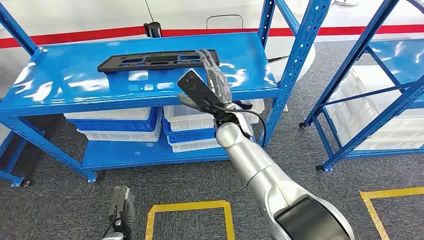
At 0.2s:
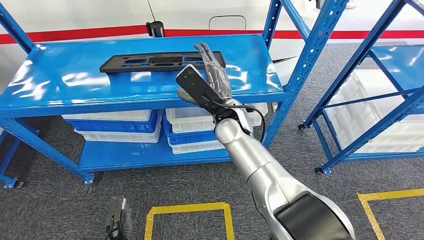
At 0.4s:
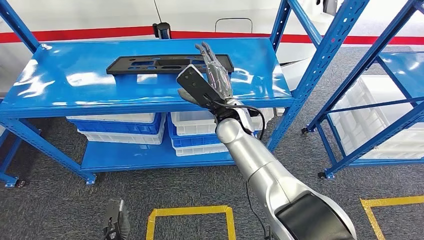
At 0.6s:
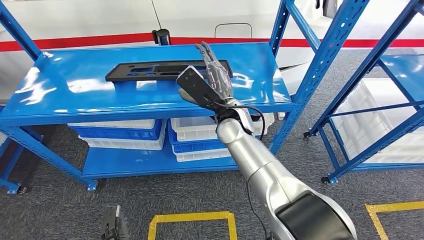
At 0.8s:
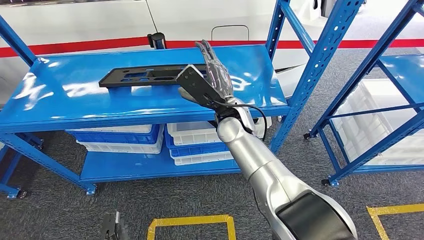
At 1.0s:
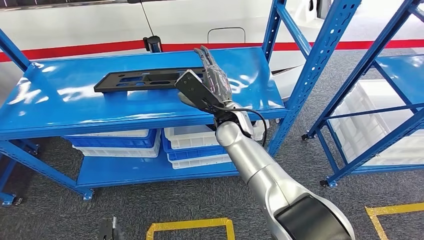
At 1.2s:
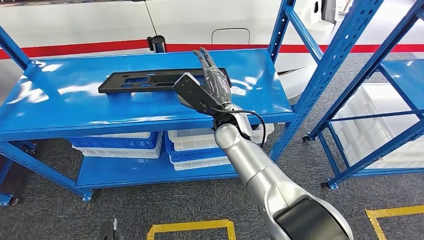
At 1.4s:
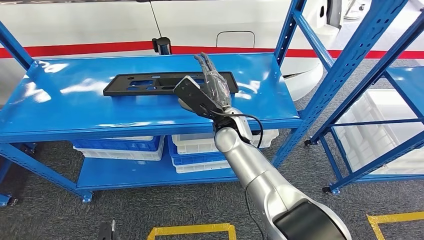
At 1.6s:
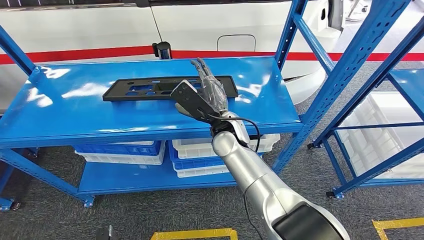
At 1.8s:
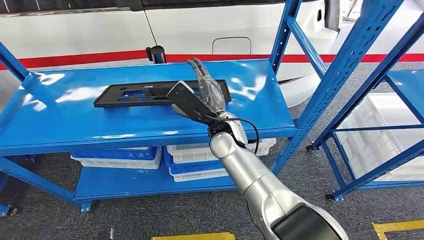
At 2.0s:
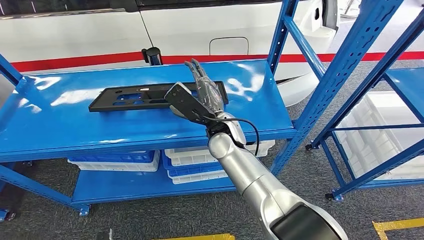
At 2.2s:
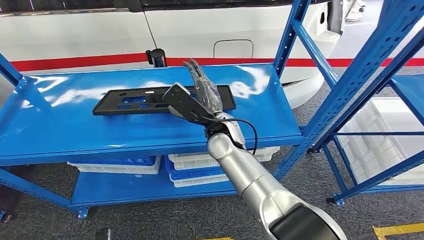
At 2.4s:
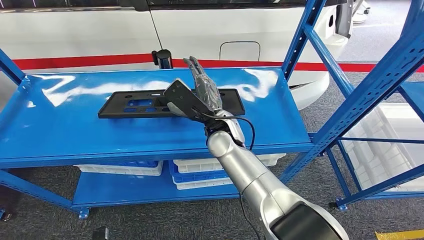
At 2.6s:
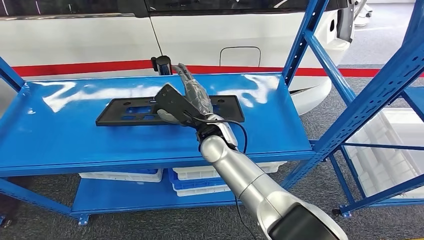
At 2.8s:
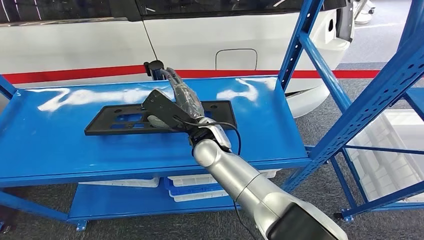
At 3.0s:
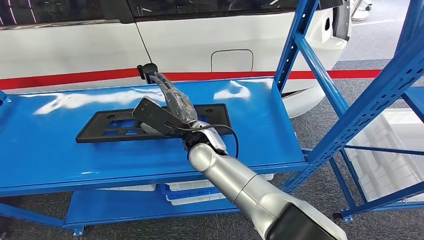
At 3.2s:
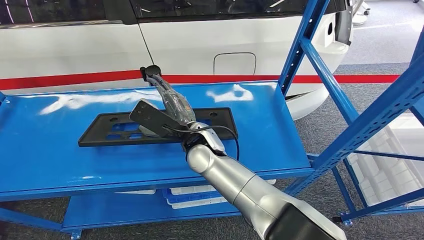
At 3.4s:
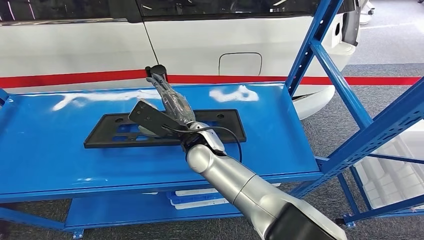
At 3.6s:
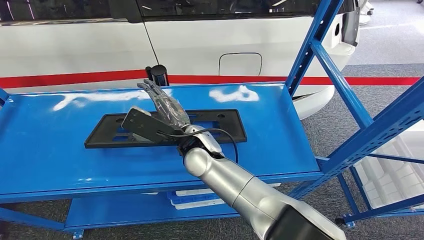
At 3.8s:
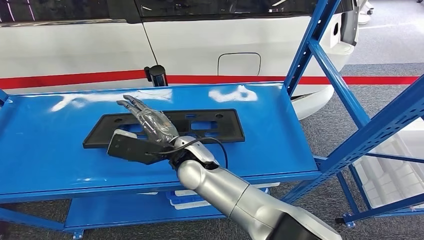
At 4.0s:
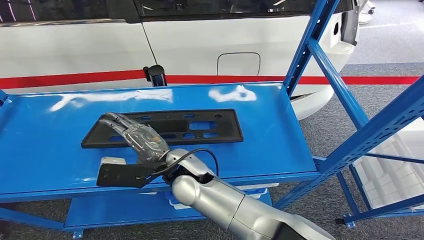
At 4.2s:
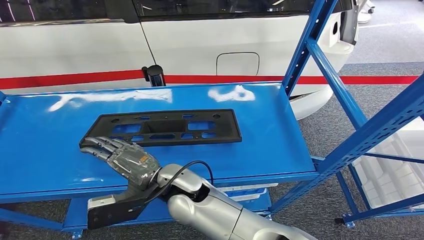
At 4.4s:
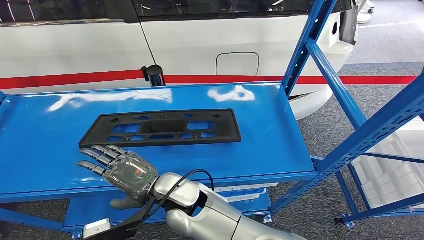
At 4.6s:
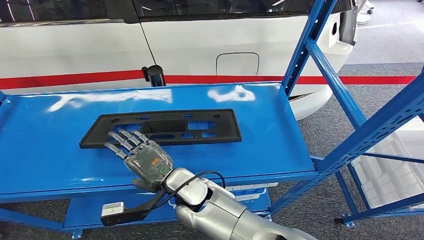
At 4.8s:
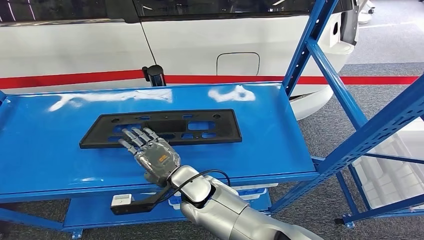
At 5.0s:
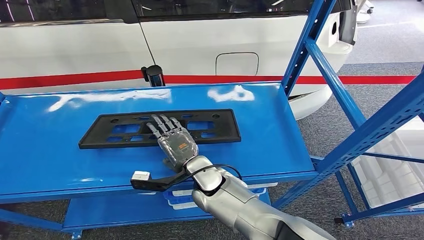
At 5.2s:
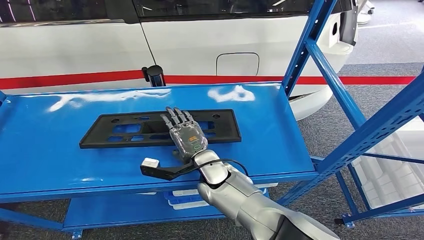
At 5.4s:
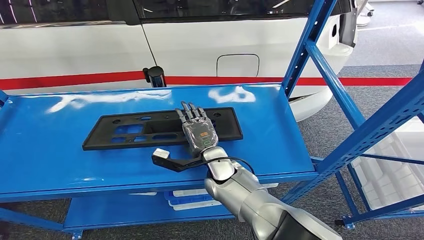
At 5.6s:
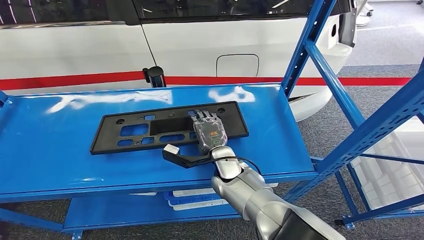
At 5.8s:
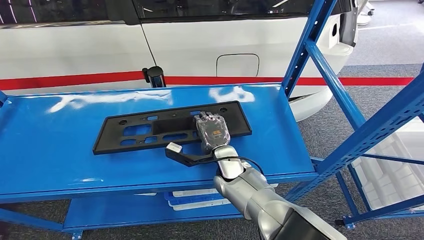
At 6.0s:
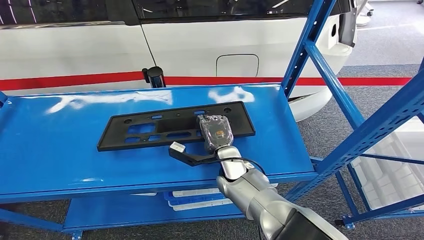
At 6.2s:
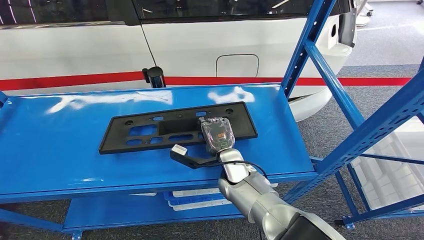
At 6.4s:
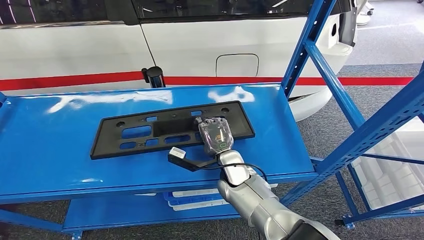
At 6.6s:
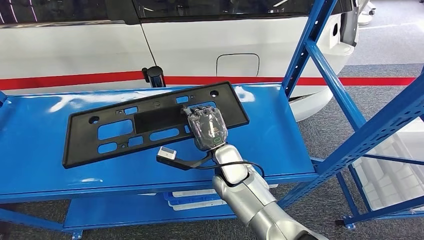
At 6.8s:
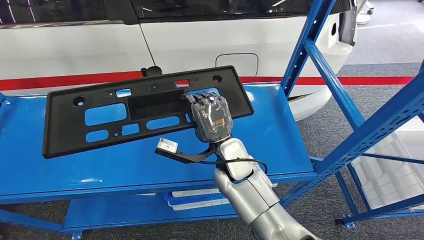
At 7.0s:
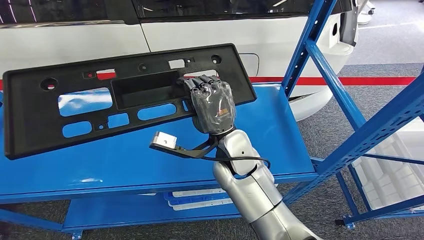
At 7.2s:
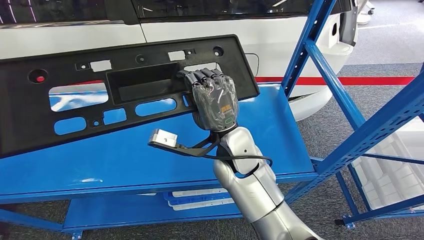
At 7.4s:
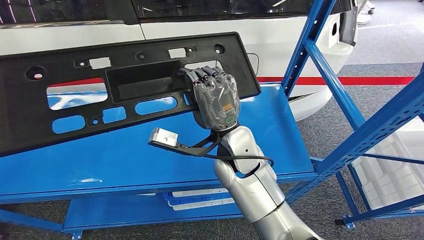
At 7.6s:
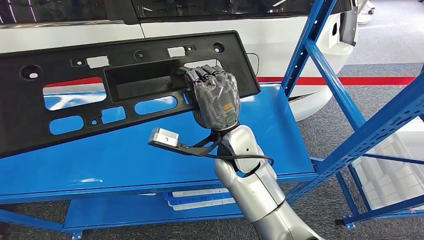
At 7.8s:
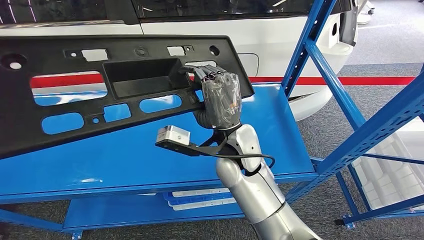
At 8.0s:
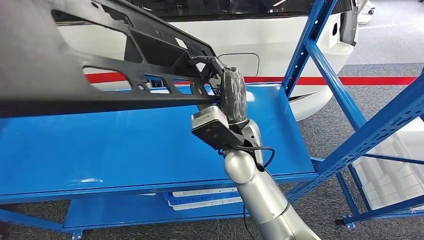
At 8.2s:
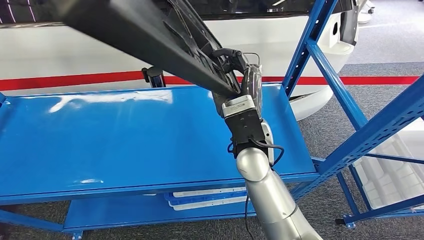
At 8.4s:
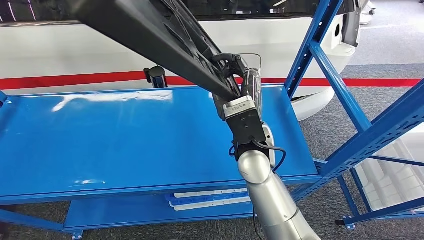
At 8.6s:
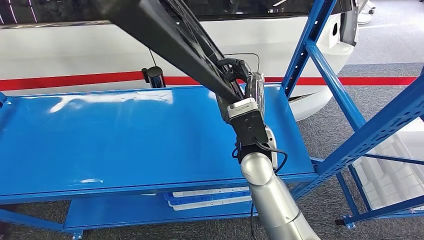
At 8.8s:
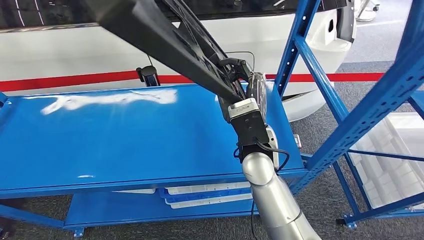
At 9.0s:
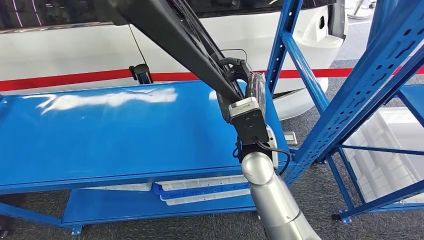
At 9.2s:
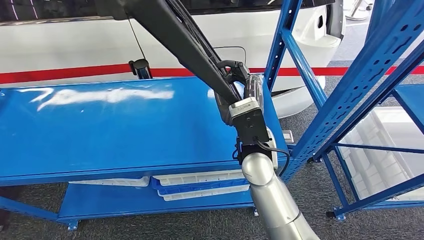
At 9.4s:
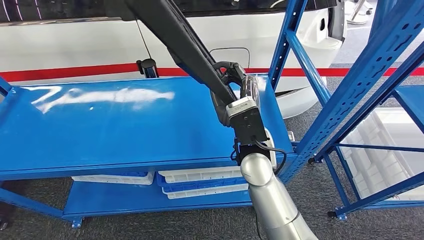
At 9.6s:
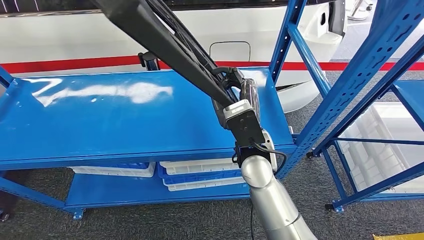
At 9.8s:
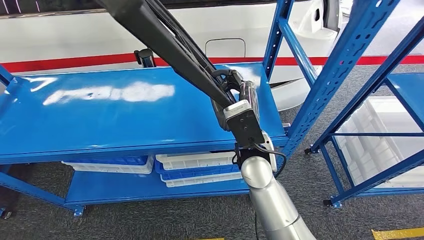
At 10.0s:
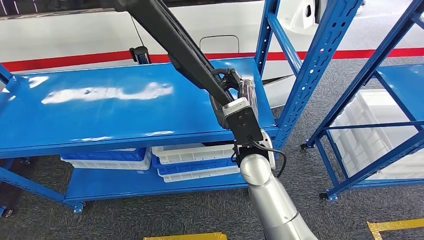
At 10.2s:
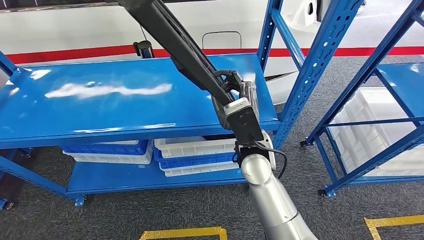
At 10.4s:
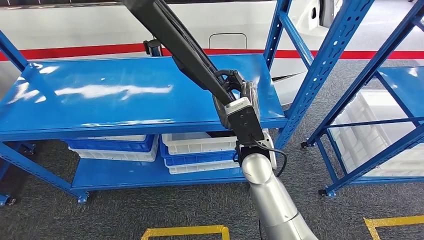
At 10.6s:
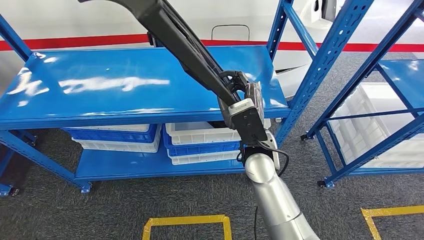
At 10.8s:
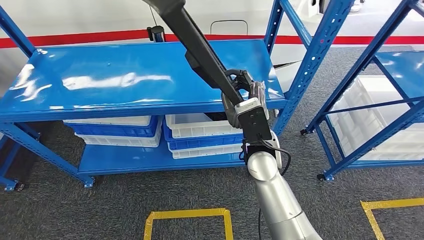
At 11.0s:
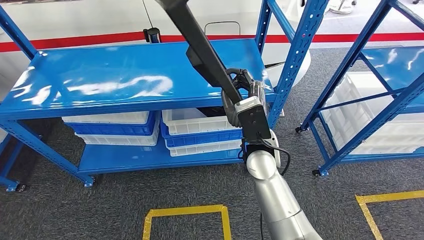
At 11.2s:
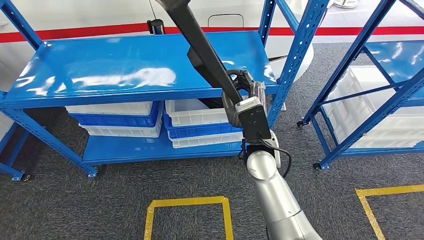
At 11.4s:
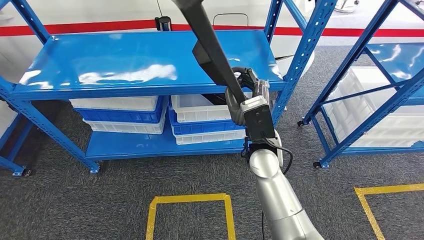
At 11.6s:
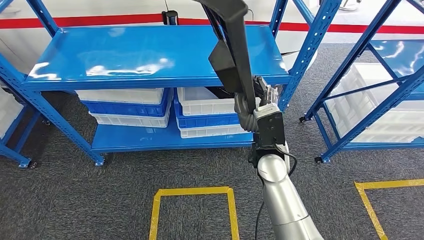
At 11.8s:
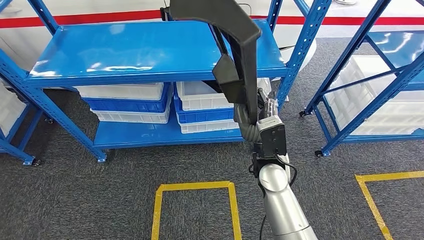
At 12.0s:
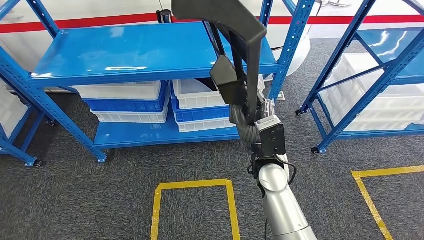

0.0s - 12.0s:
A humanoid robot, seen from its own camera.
Step, 0.0s - 10.8s: Pick up the large material from the shelf.

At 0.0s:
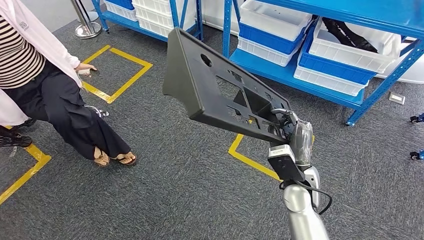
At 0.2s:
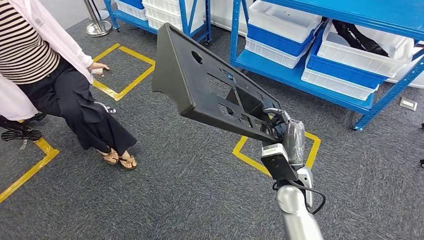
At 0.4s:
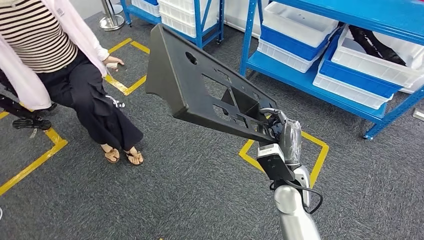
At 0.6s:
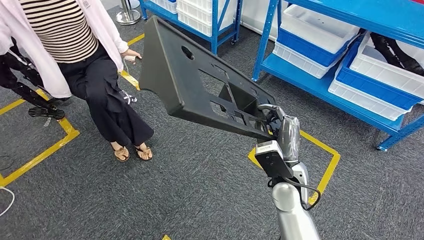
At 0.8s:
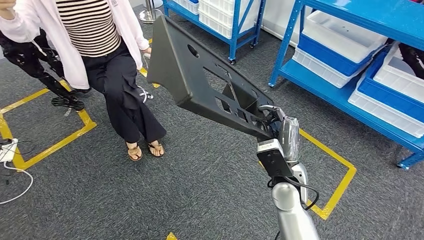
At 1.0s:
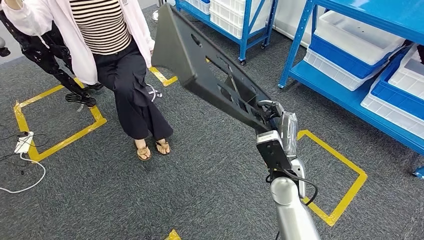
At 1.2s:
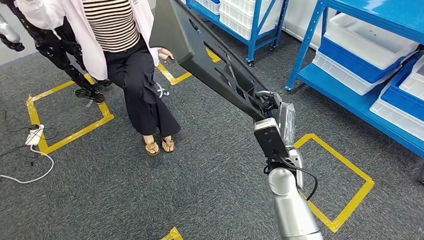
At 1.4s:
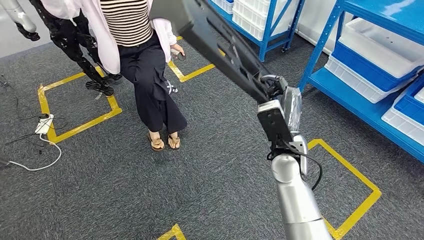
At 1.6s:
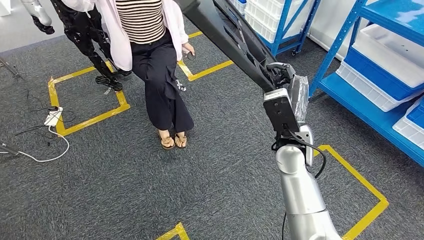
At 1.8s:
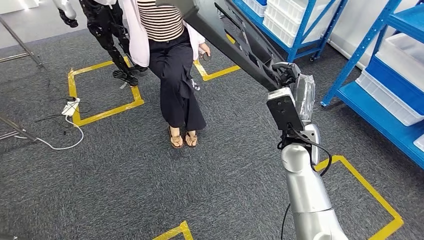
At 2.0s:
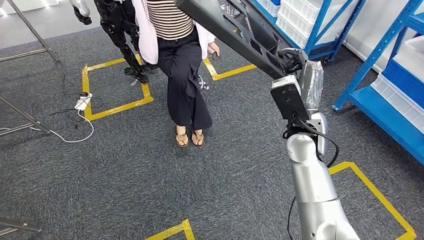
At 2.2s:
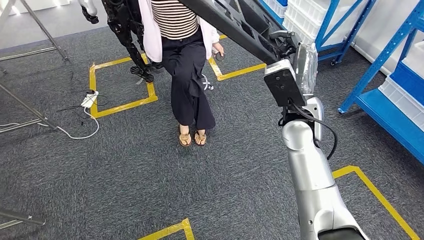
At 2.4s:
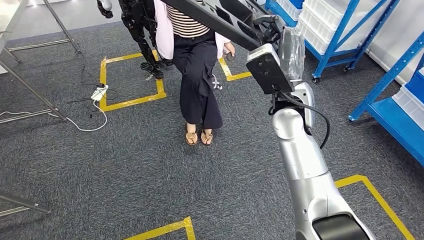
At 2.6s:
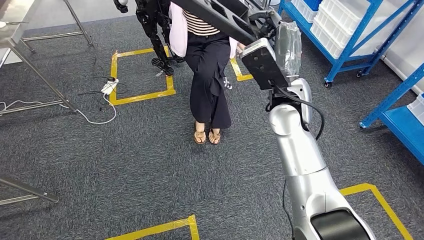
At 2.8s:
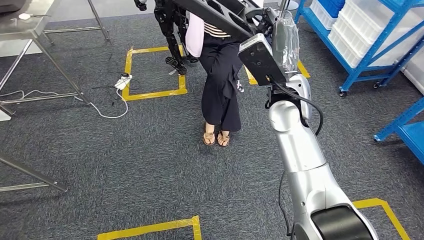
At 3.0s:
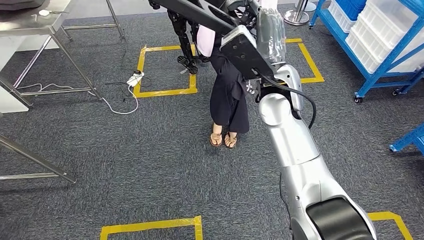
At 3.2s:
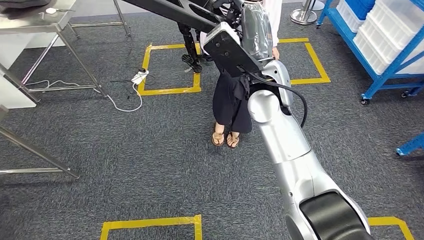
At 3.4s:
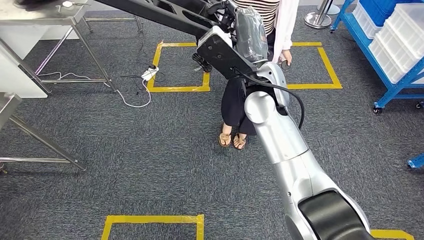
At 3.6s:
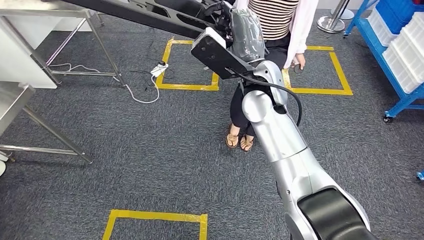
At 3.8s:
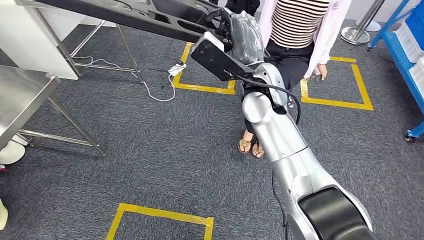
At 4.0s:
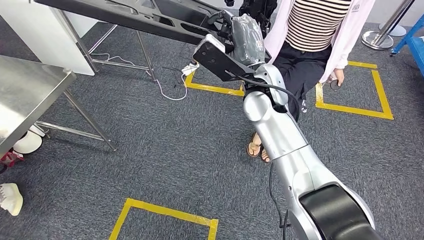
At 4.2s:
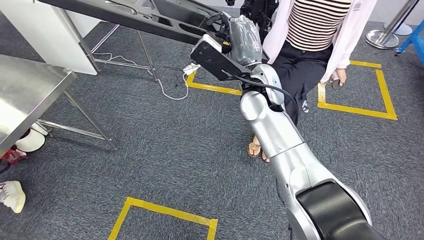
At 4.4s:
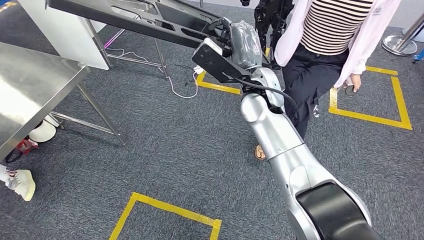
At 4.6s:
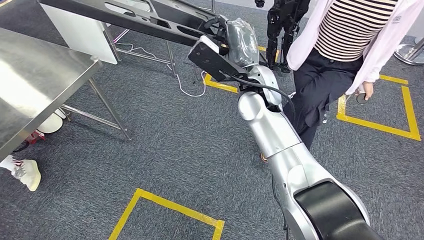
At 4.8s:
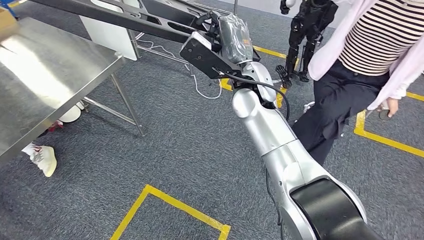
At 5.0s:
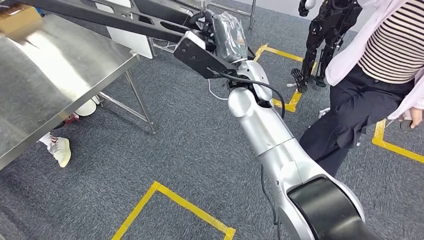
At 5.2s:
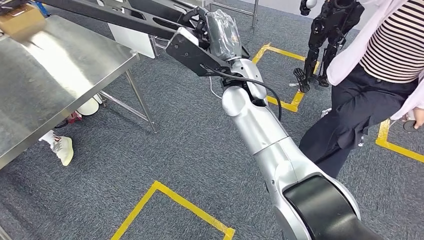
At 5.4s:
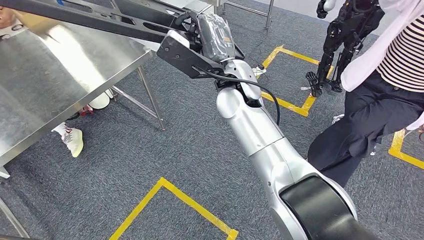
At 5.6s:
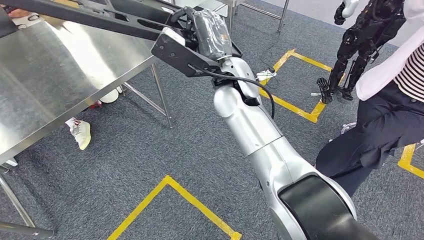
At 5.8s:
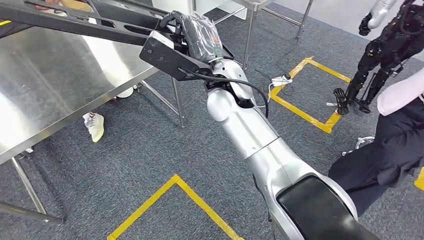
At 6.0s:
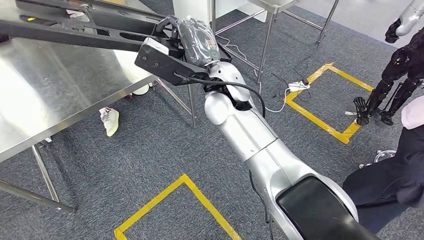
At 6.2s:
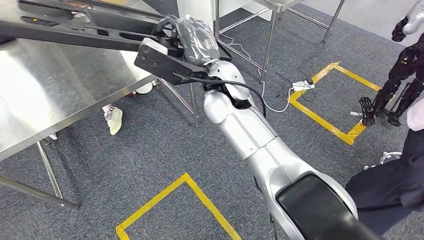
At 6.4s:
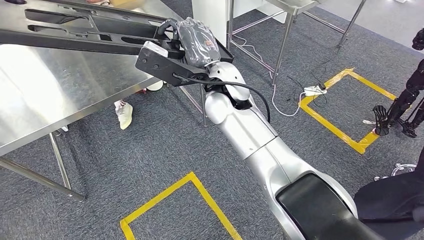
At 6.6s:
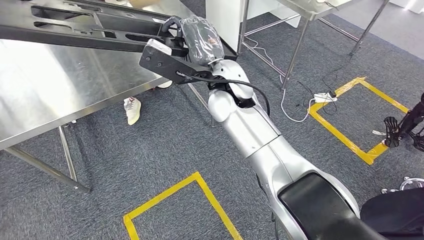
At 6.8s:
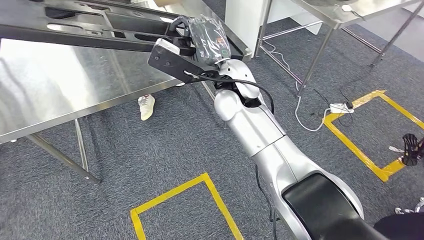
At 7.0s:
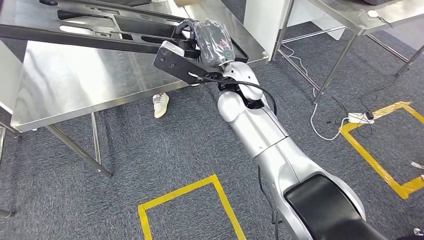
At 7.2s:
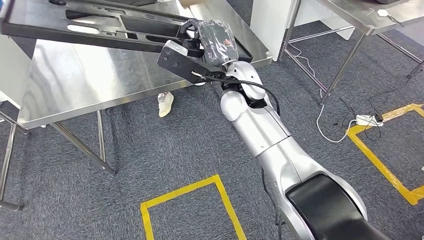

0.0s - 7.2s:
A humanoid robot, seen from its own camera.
Step, 0.0s - 5.4s: Move the large material to the workbench.
